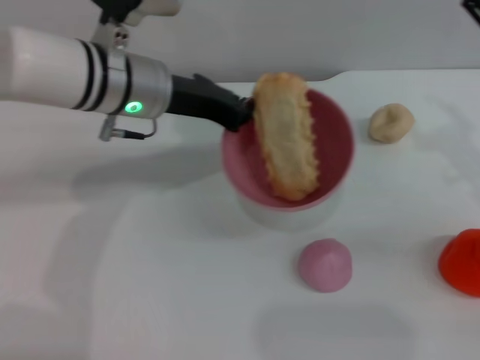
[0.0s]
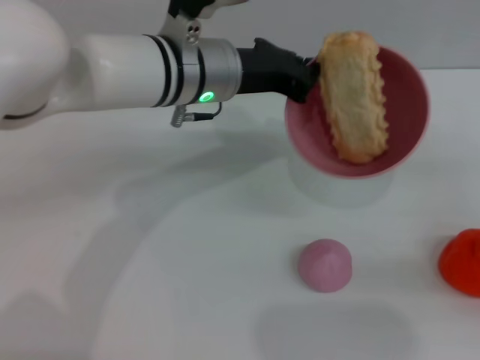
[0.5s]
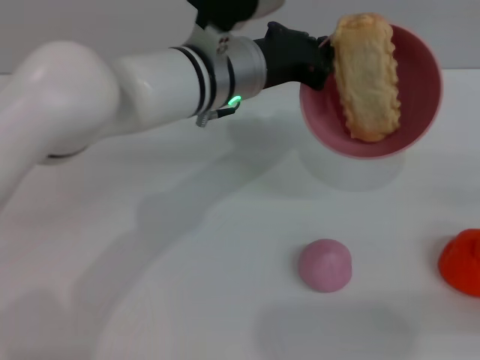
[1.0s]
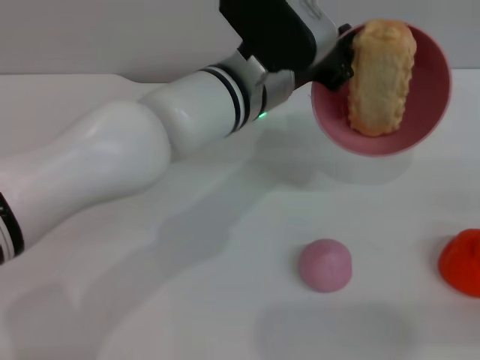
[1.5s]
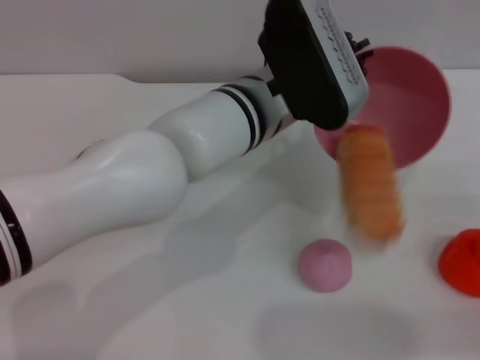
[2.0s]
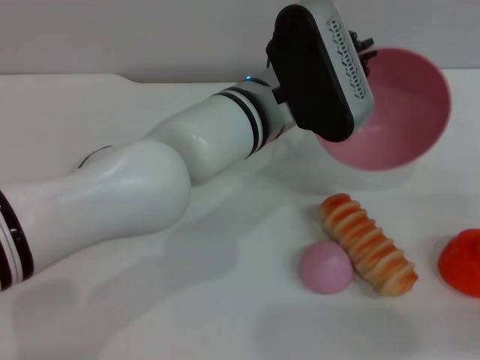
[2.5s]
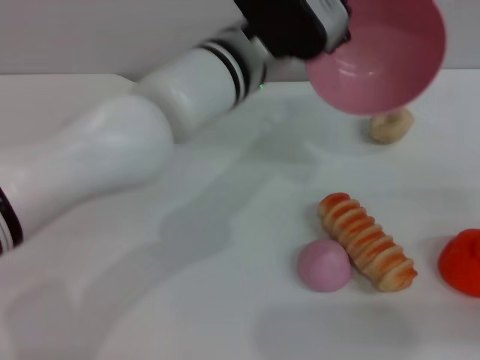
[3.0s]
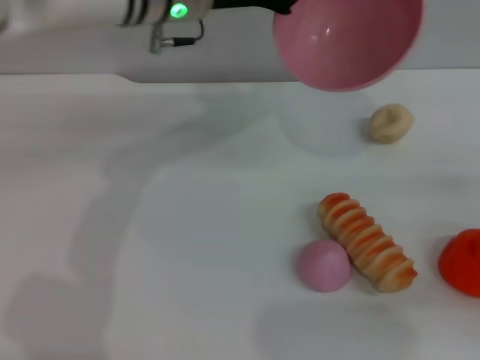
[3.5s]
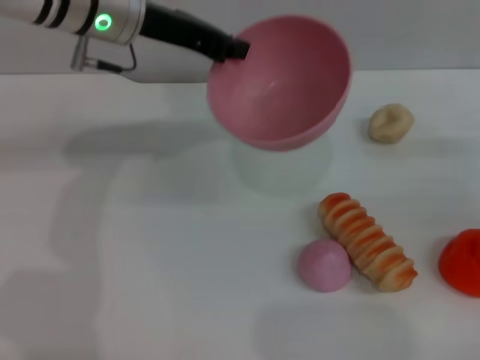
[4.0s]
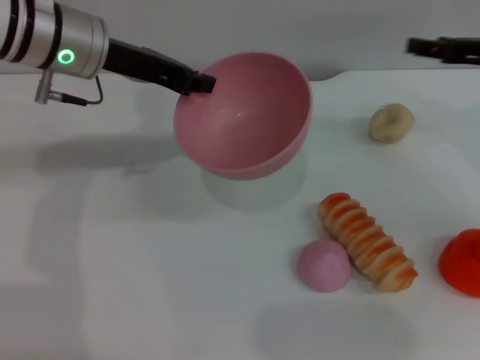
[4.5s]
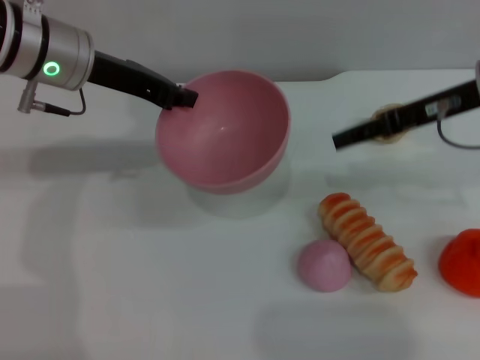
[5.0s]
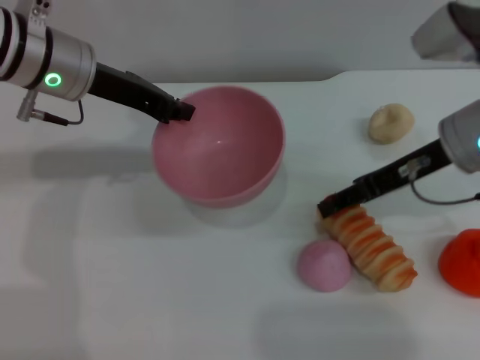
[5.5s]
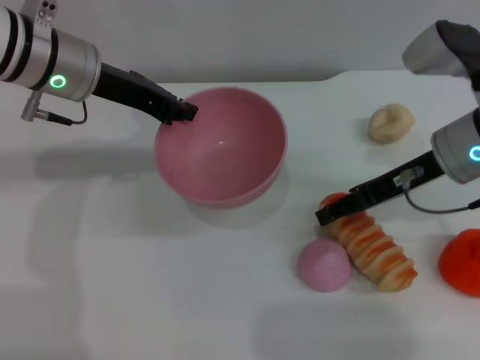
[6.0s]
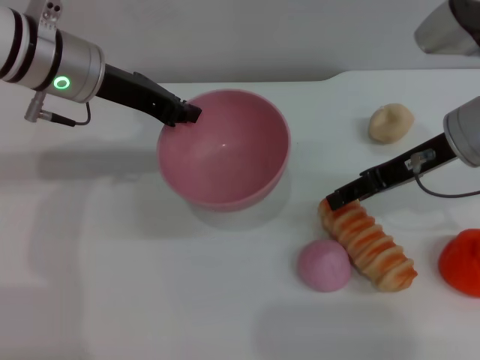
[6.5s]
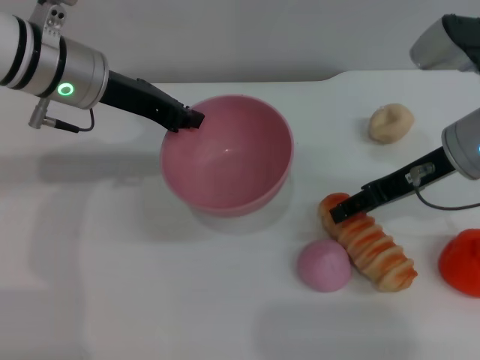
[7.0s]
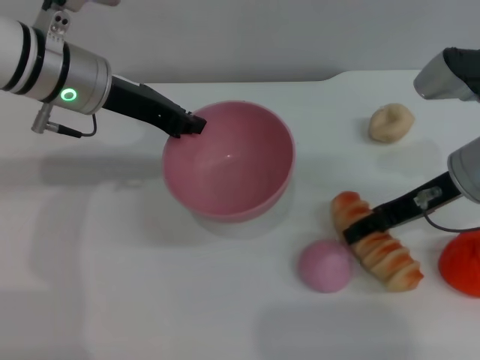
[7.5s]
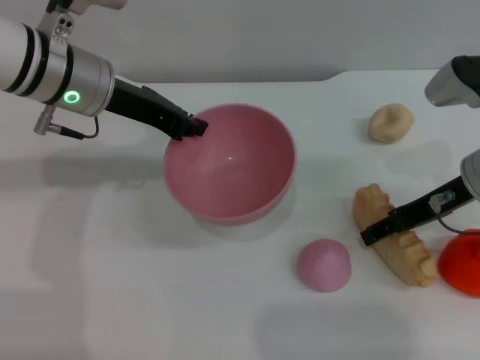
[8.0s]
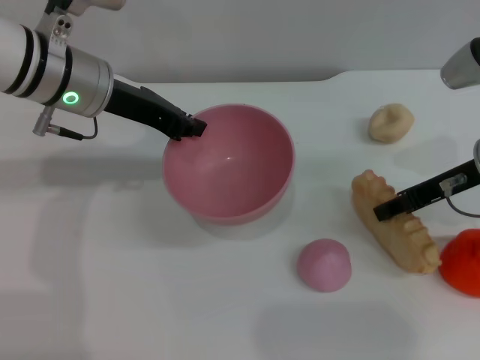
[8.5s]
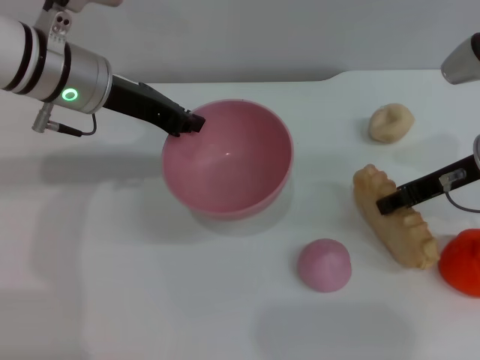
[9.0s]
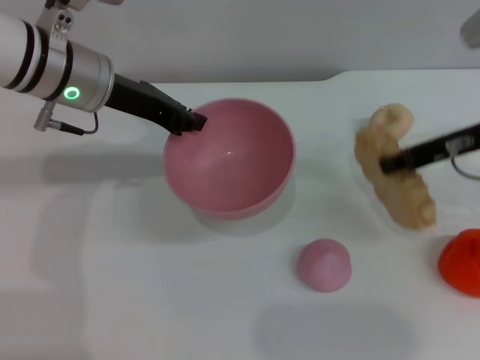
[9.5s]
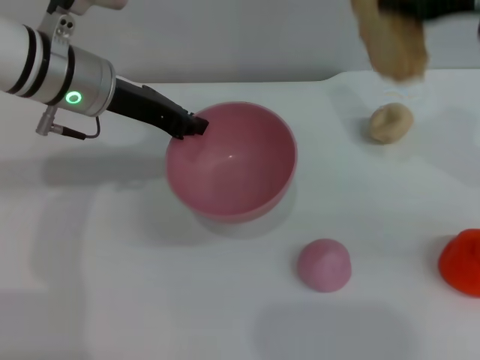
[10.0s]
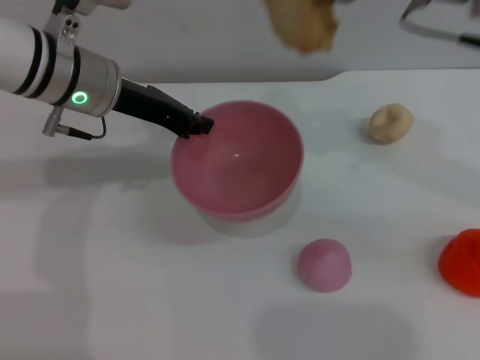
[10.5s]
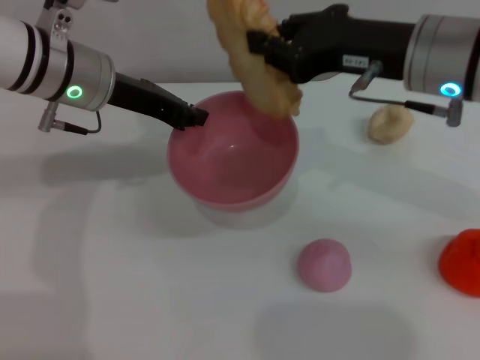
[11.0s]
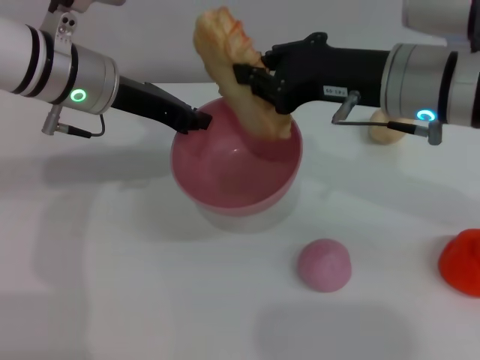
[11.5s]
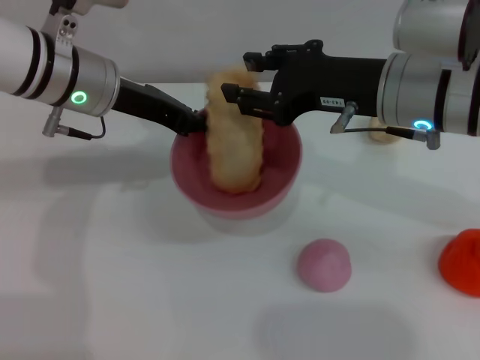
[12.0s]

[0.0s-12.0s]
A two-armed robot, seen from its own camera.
Task of the whole recording: put the bread into the pink bowl and pour it out repeatedly.
Step, 0.0s to 2.5s: Pour the bread out of the bowl.
Step, 3.0s to 9.5s: Pick up the bread with the right gripper.
0.0s to 2.0s: The left gripper heads to the right, covering roughly 10 cm. Meanwhile the right gripper shifts roughly 15 cm to the right and backward.
2.0s to 4.0s: The left gripper goes some 20 cm to the left, forward and upward; the right gripper travels forward by roughly 10 cm.
4.0s to 6.0s: The right gripper heads to the left, covering roughly 15 cm; the left gripper shifts by some 5 cm.
8.0s to 10.0s: The right gripper heads upward, covering some 15 cm, and closes its fingers.
10.0s to 12.0s: The right gripper travels to the left and downward by roughly 15 cm.

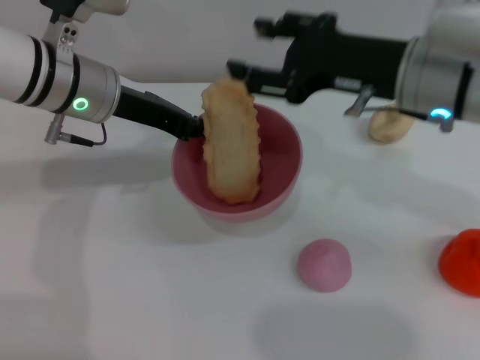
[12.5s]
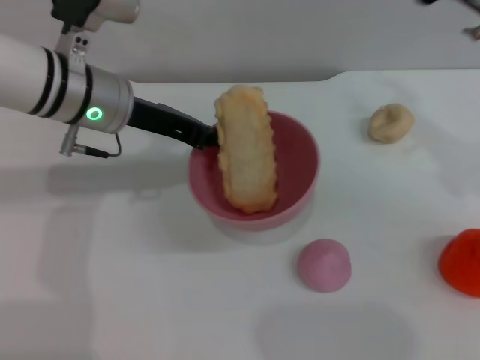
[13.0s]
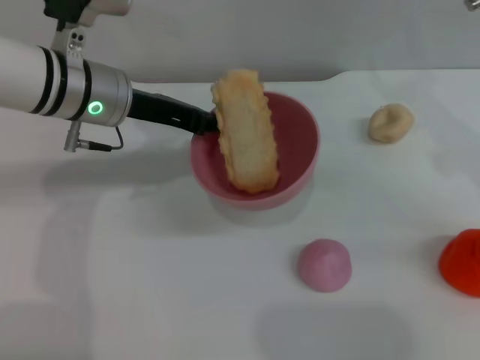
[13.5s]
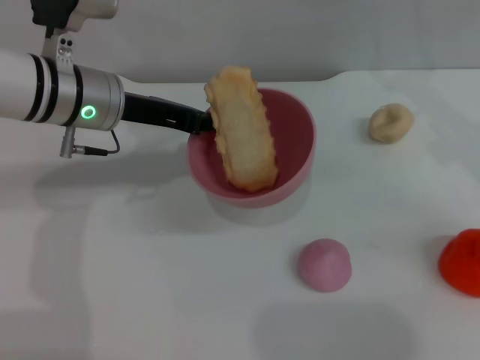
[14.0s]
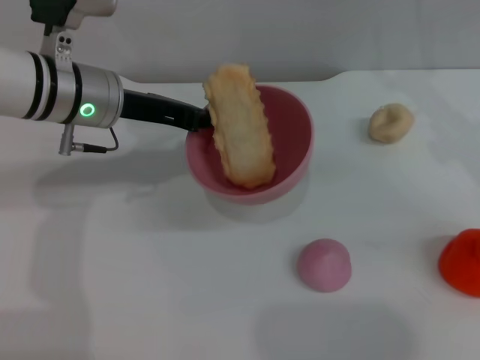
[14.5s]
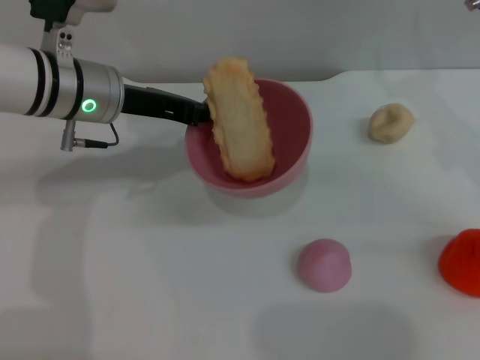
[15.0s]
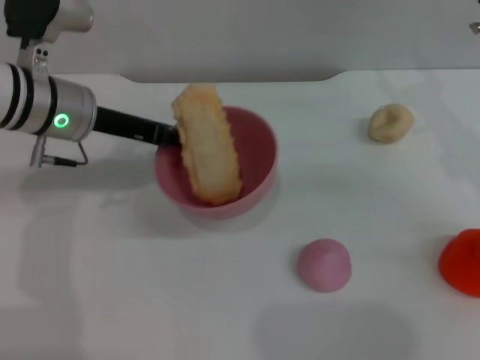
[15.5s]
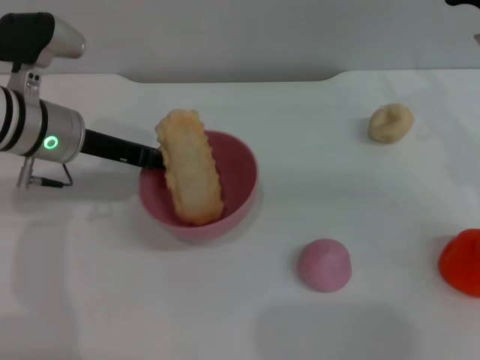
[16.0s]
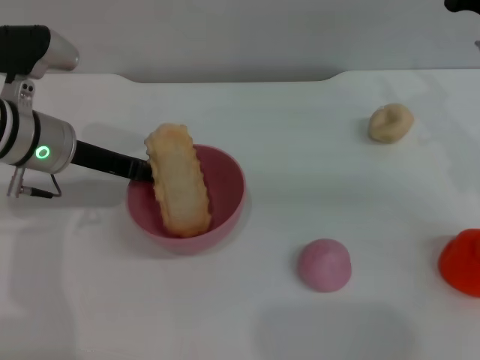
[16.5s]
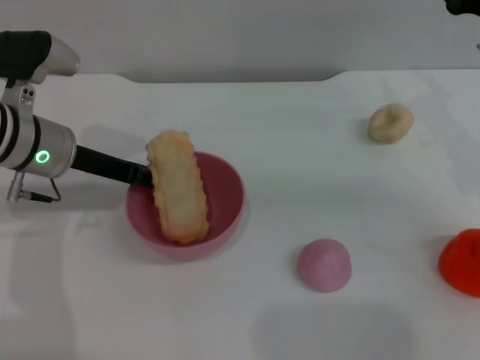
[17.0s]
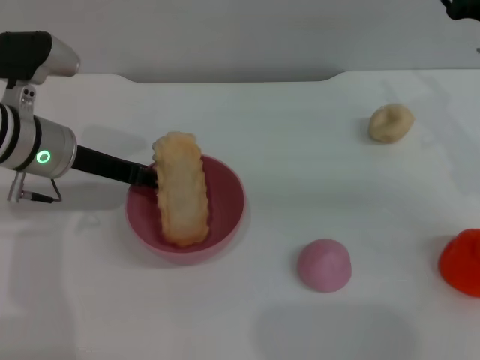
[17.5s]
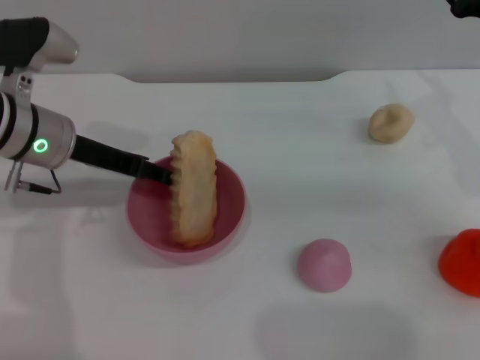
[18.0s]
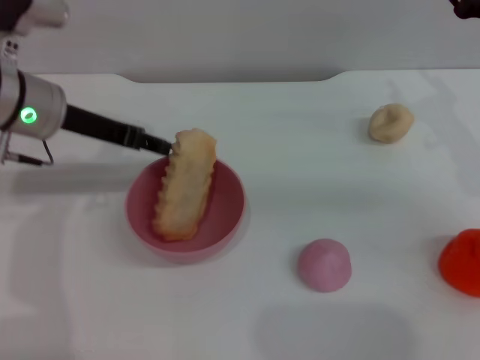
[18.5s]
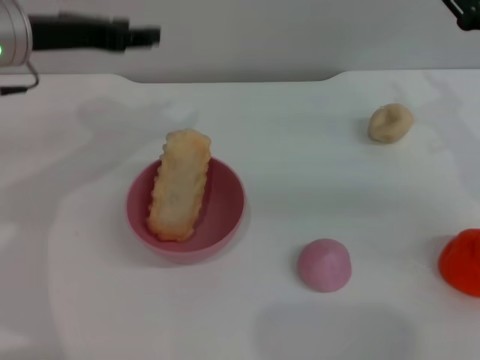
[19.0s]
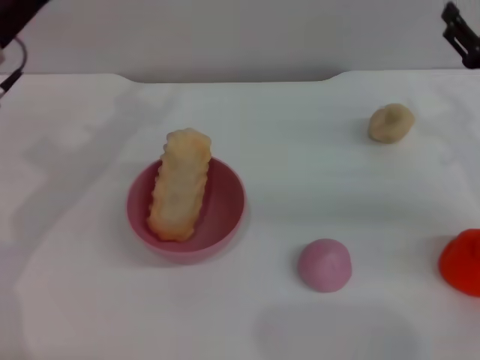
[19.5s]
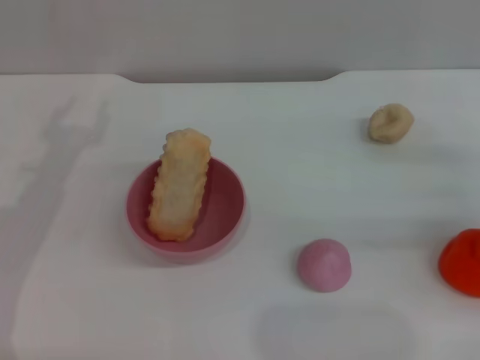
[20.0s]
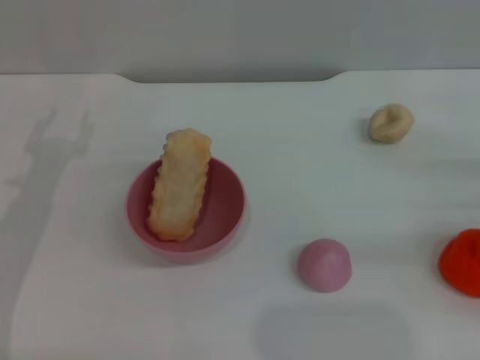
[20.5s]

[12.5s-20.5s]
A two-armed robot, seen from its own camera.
Task of the whole recording: put the bread into the pink bowl and pour it out repeatedly.
Step, 13.0s to 18.5s: Place the bowl on the table.
12.5s to 14.5s: The right gripper goes approximately 10 cm to the right and forward.
14.5s to 16.5s: The left gripper changes place by approximately 5 cm; the right gripper ends up approximately 5 cm from where it was.
16.5s to 18.5s: The left gripper opens.
18.5s to 20.5s: The left gripper moves backward, to the left and downward, approximately 15 cm. Meanwhile the right gripper travels to the right, backward and downward by about 15 cm.
